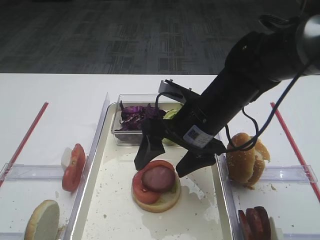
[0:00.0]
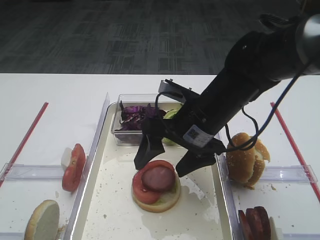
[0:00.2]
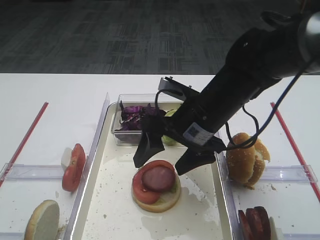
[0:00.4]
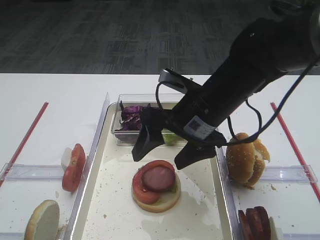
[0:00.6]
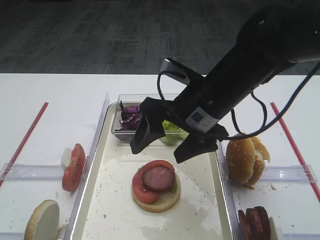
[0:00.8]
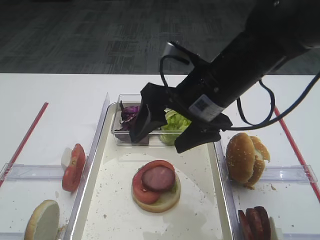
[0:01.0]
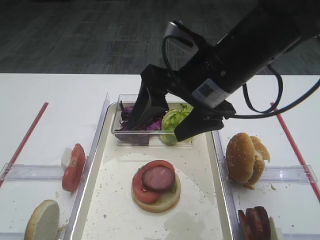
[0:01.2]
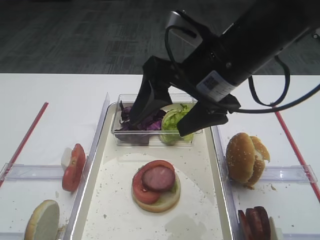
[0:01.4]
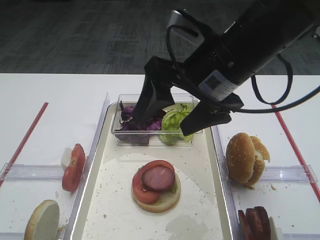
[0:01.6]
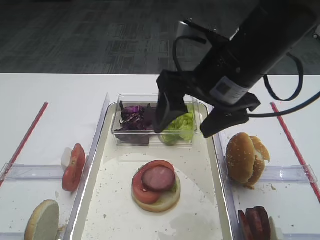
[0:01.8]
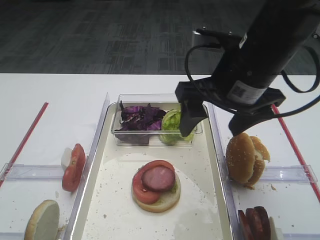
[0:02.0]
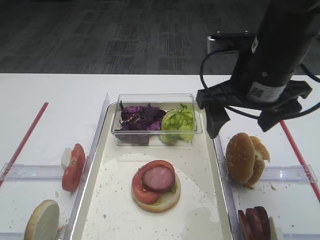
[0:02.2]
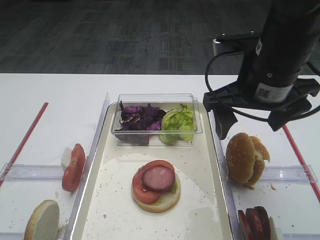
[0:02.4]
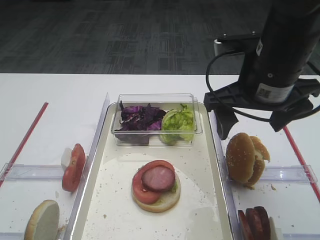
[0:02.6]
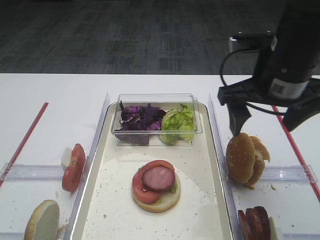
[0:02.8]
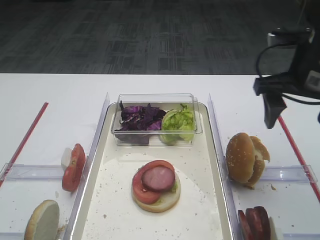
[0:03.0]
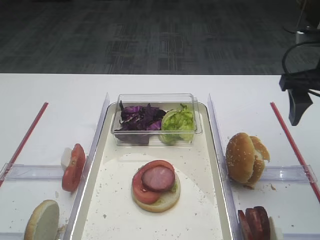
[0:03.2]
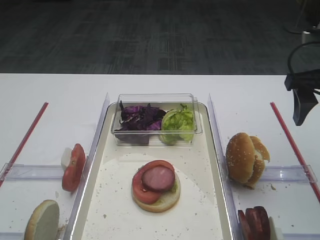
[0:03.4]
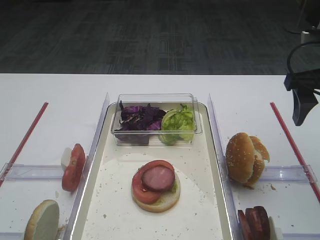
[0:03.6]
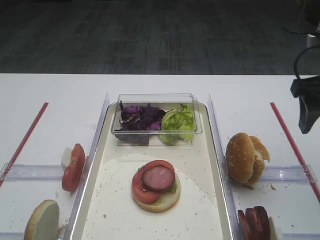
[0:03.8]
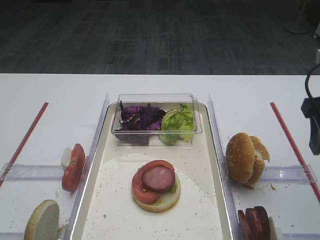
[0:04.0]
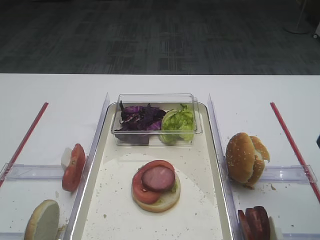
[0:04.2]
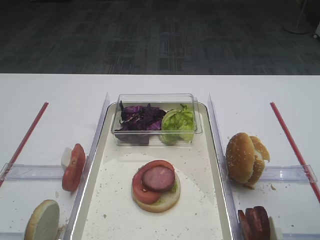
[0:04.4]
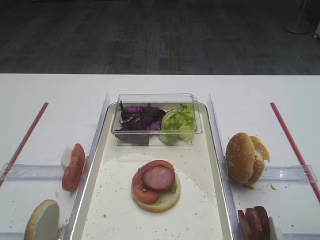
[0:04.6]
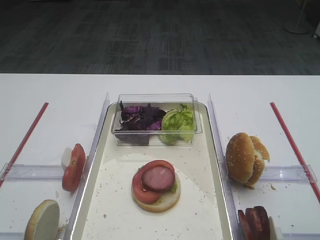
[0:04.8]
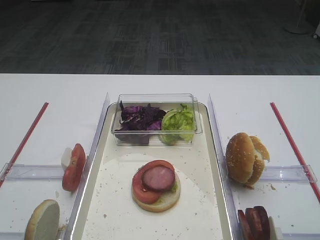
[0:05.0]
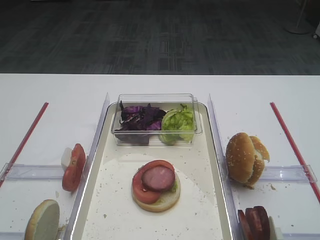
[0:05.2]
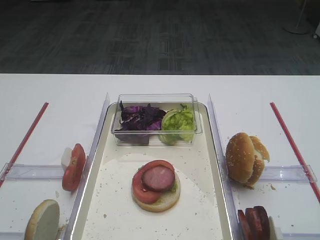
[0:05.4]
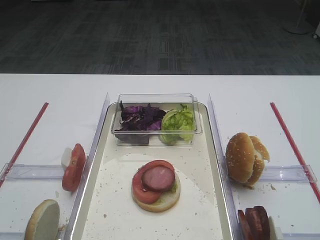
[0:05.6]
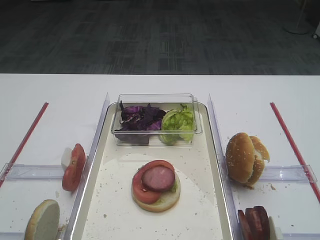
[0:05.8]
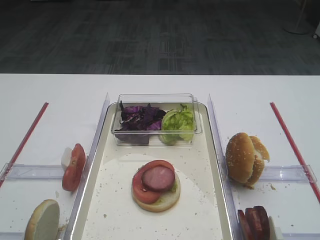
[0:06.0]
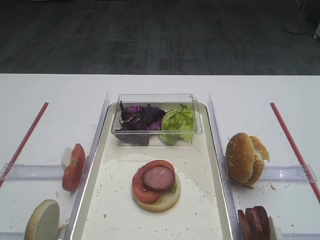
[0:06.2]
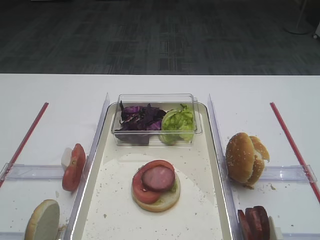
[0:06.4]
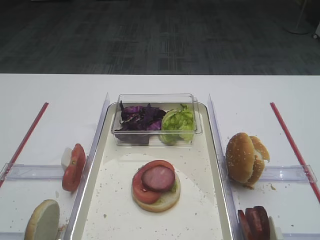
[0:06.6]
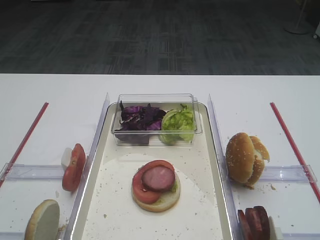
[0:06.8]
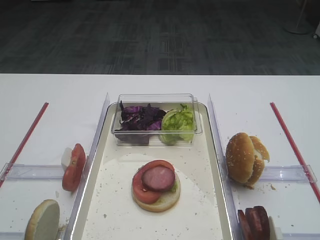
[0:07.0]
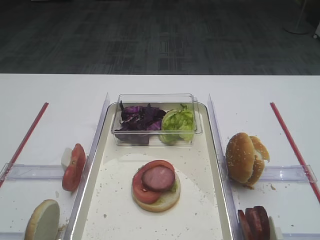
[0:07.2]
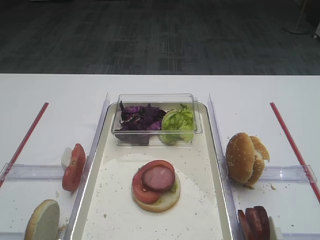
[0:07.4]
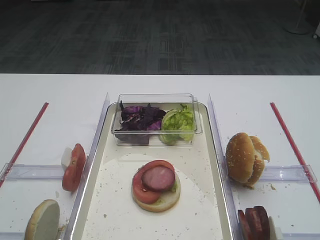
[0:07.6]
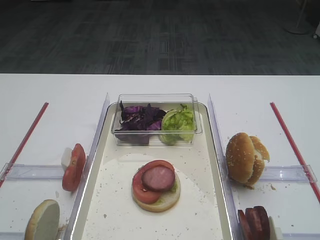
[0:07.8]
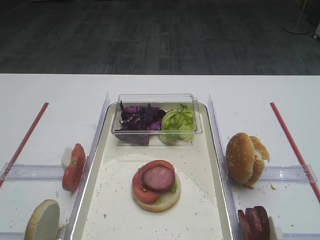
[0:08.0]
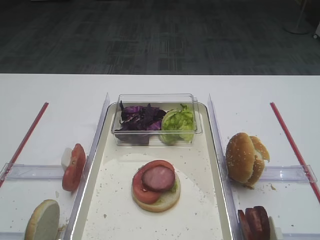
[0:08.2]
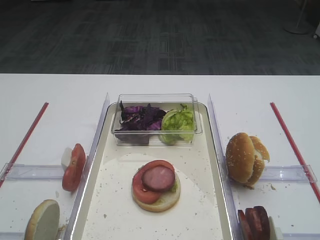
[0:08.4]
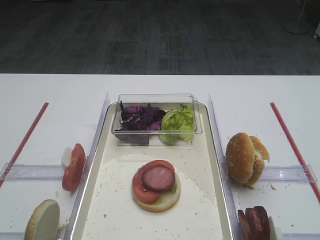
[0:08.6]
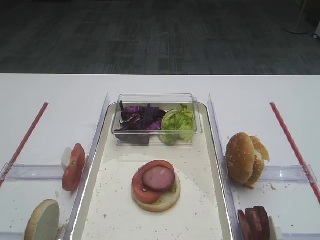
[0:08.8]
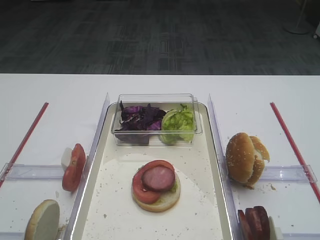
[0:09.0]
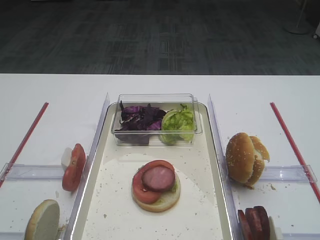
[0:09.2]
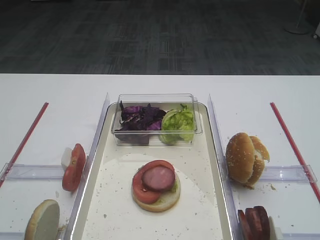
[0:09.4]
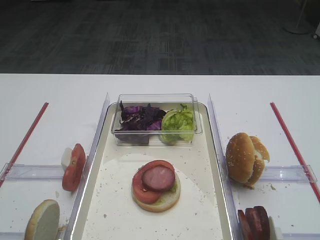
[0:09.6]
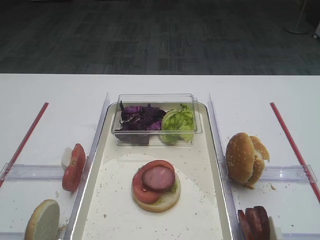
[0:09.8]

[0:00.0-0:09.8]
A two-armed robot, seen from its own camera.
0:00.0 to 0:01.4: The right gripper shifts roughly 10 cm upward.
0:01.4 to 0:02.8: The right gripper shifts some 10 cm to the right.
0:02.8 to 0:04.2: The right gripper heads to the right and backward, covering about 15 cm.
0:04.2 to 0:05.6: The right gripper shifts approximately 15 cm backward.
0:07.0 to 0:09.8: Both grippers stay put.

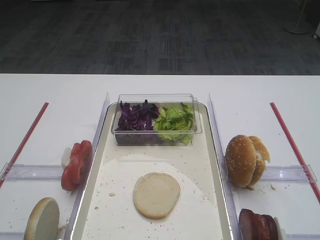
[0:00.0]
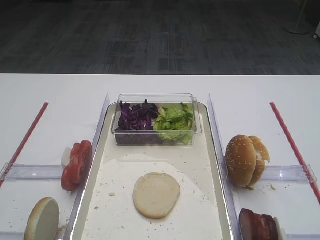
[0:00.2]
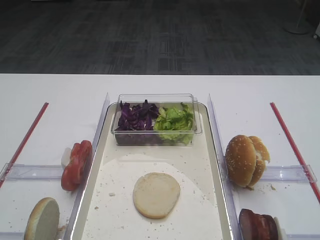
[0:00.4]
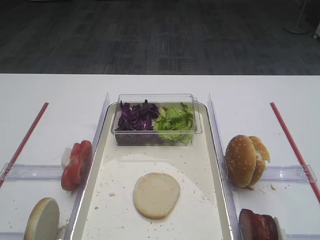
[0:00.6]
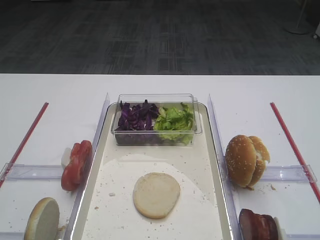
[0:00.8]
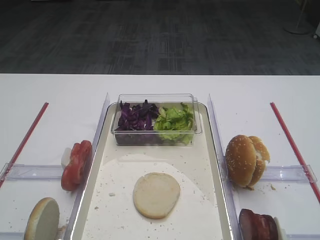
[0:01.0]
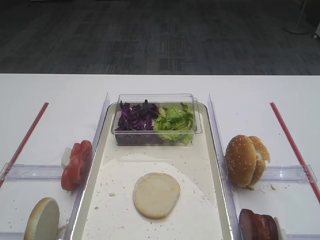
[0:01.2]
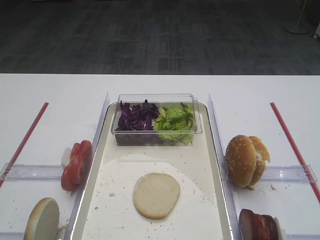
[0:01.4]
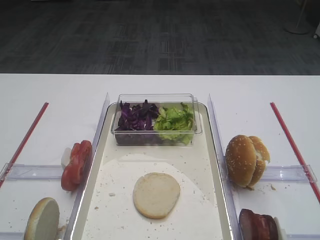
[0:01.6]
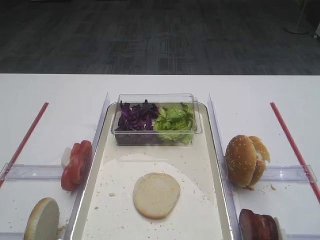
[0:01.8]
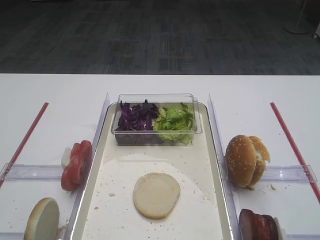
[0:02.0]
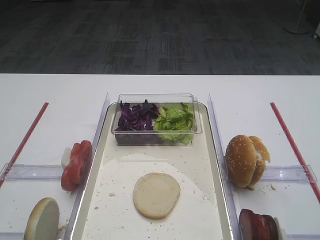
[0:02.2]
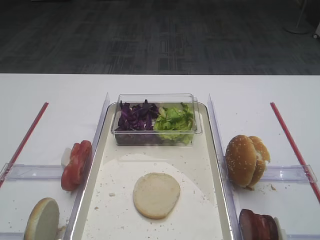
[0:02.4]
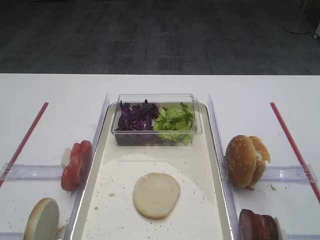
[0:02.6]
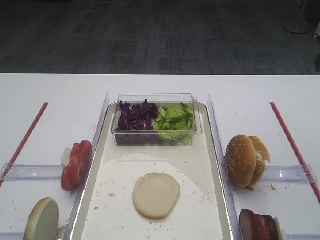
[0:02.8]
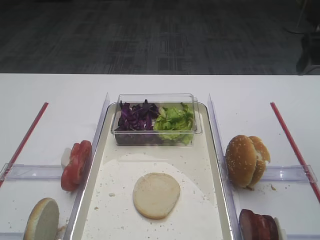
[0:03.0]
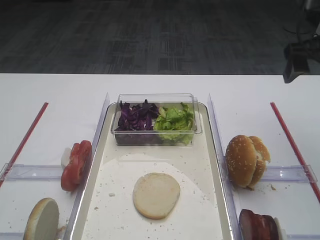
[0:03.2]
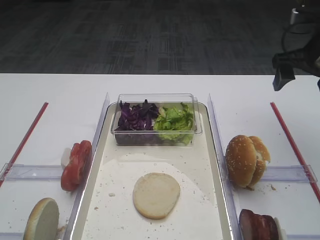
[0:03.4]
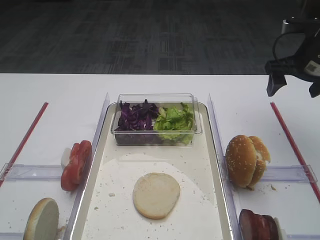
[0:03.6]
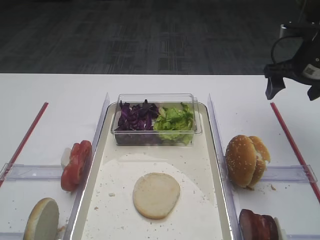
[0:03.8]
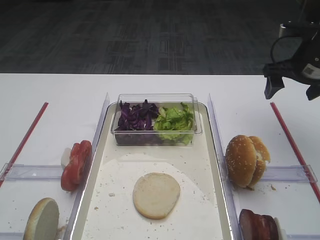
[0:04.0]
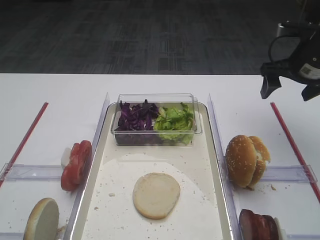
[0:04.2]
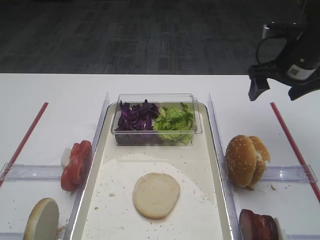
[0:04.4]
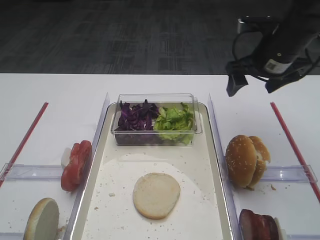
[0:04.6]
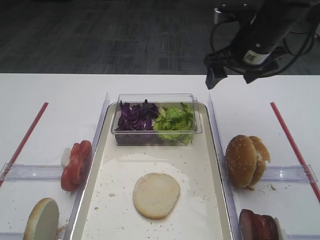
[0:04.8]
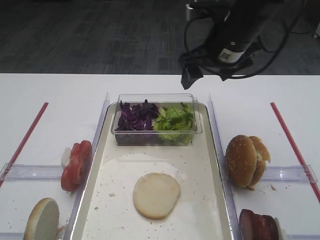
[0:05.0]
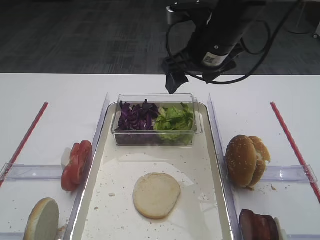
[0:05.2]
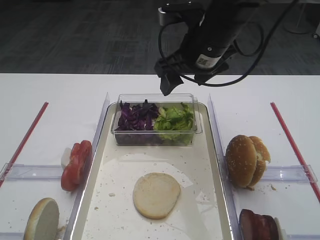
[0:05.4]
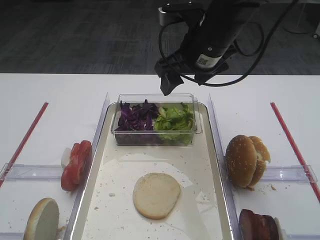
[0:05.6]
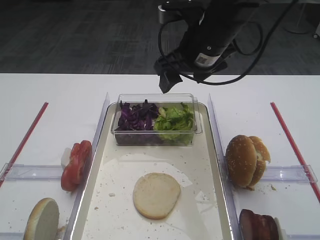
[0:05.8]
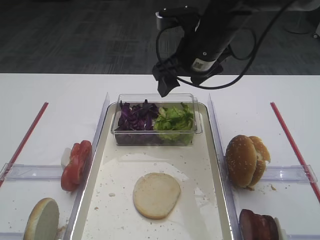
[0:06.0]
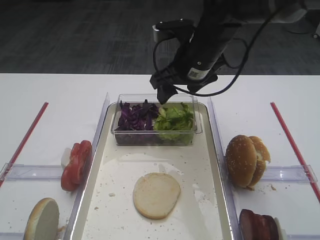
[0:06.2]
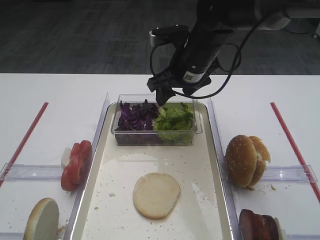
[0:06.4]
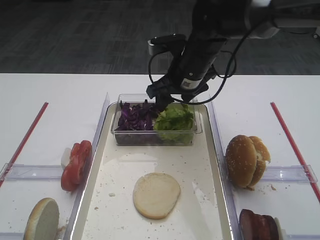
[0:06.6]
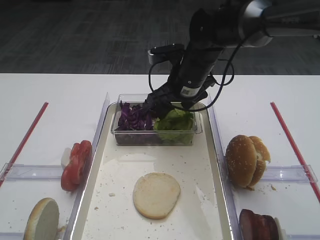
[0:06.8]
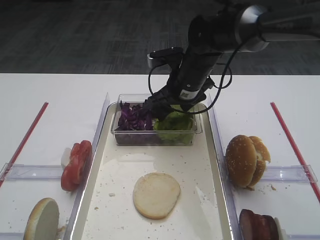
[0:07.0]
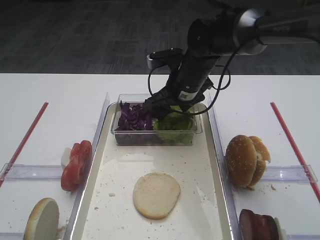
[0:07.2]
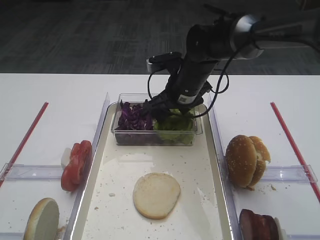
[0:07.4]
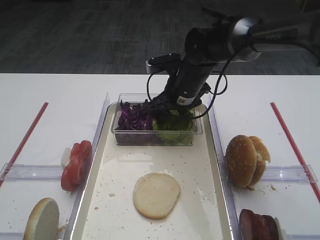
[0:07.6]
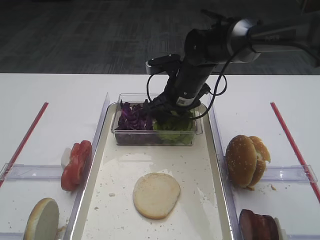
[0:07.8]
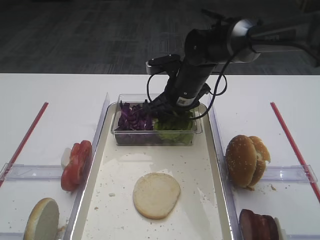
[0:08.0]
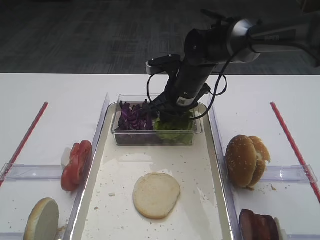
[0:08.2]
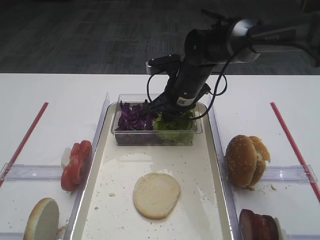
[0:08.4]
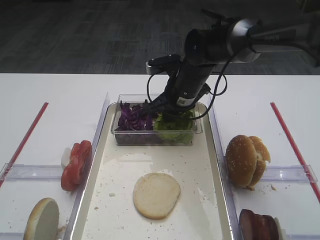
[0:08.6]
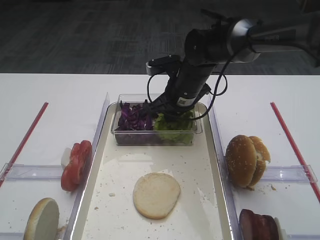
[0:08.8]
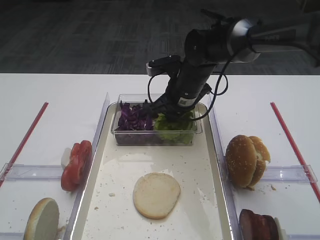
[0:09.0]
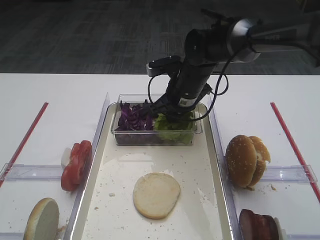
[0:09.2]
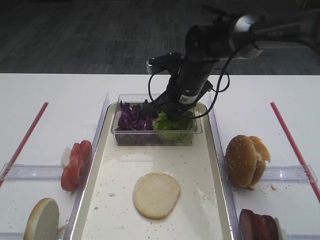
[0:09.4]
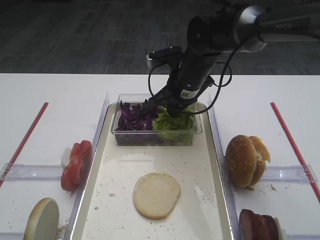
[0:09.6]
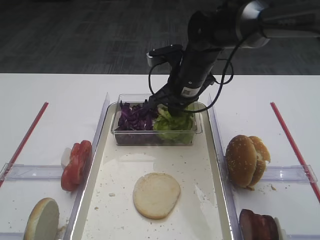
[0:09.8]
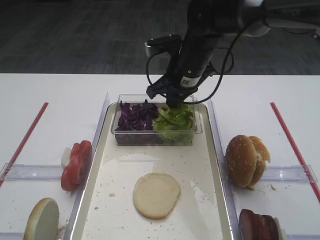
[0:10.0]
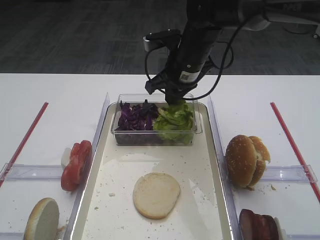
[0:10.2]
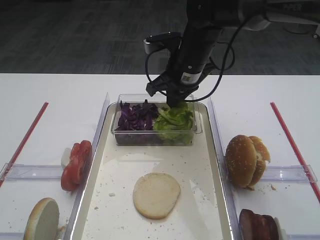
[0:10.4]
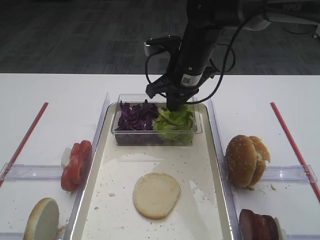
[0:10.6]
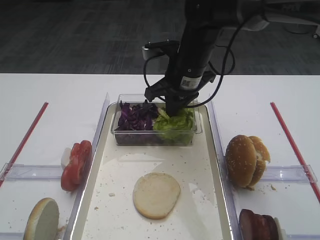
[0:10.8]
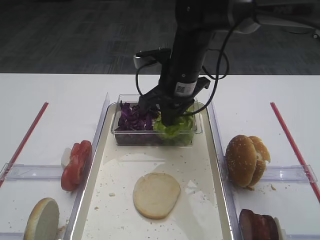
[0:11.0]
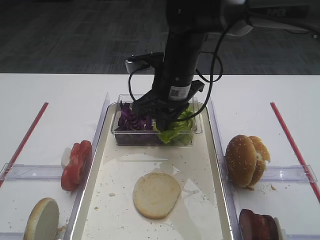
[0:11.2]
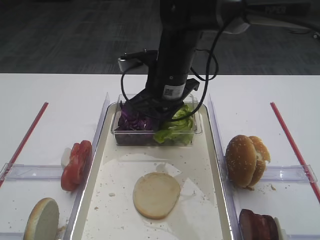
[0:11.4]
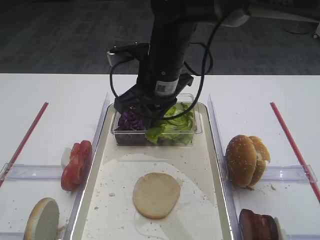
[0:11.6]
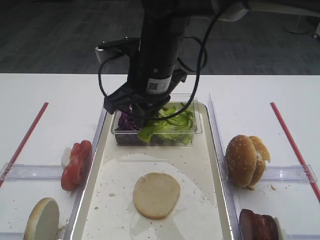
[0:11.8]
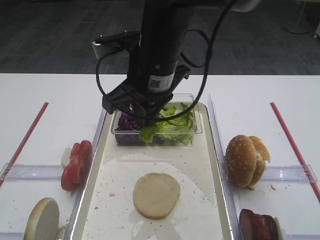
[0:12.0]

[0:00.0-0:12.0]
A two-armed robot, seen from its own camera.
Step, 0:00.0 to 0:10.4: Pick up the lettuce leaf with the right gripper.
0:01.6 to 0:03.0: The right gripper is displaced forward by some 30 cm.
0:03.0 to 0:04.4: The right gripper moves forward and downward, approximately 15 cm.
0:04.4 to 0:06.0: The right gripper goes some 20 cm to the left.
0:06.0 to 0:07.6: The right gripper shifts roughly 10 cm downward.
0:07.6 to 0:09.0: The right gripper closes its fingers.
0:09.0 to 0:10.4: The right gripper shifts roughly 5 cm upward.
0:10.4 to 0:12.0: The right gripper is displaced backward, to the left and upward by some 15 cm.

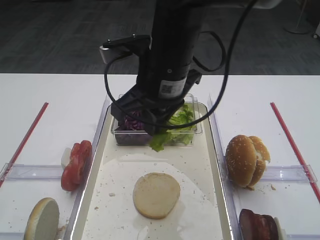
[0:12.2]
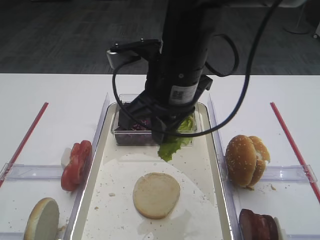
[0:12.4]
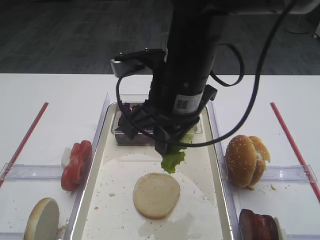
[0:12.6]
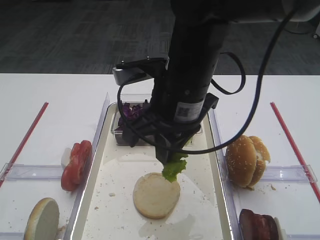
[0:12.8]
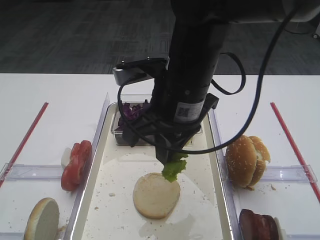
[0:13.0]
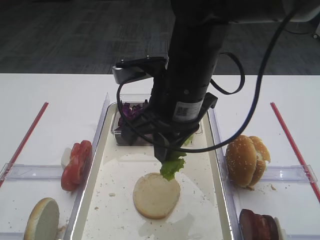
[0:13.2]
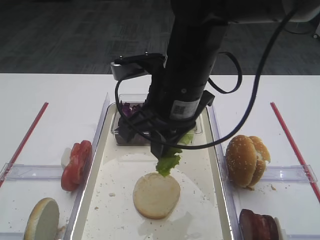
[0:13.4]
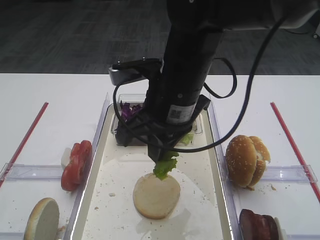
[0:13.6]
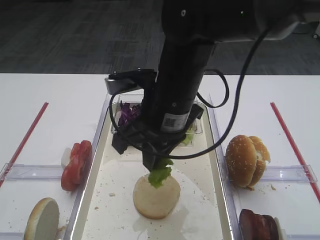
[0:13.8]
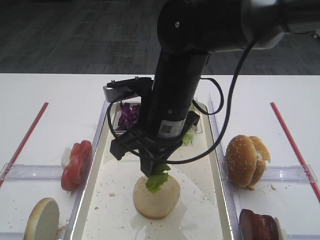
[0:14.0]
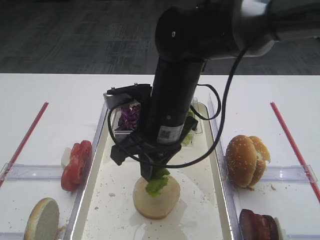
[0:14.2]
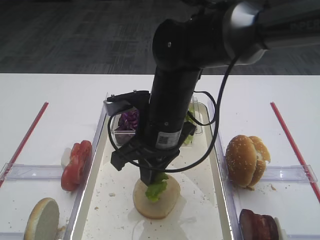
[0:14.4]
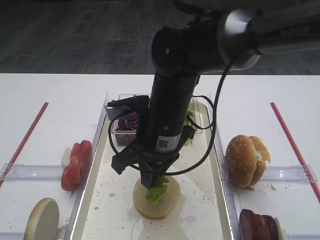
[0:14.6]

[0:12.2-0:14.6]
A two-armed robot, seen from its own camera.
0:12.2 to 0:13.4: There are only small adjustments of the grippers.
0:13.4 to 0:14.6: The right gripper goes roughly 5 cm downward.
